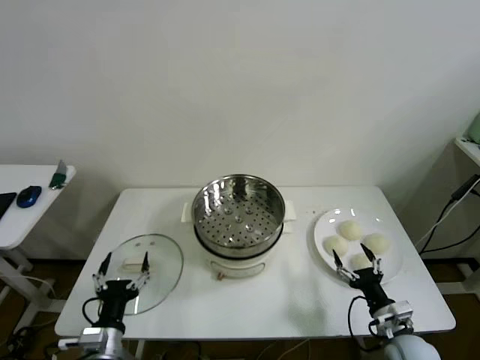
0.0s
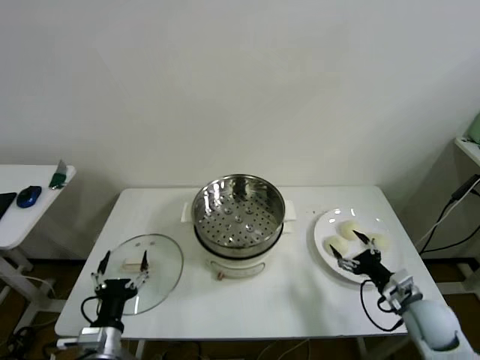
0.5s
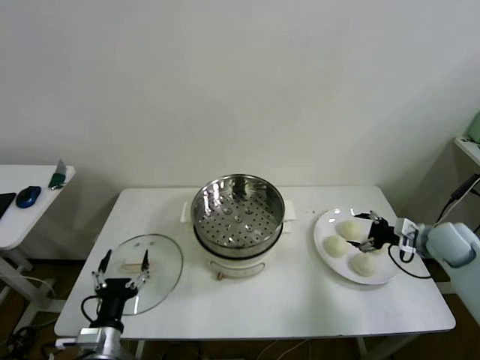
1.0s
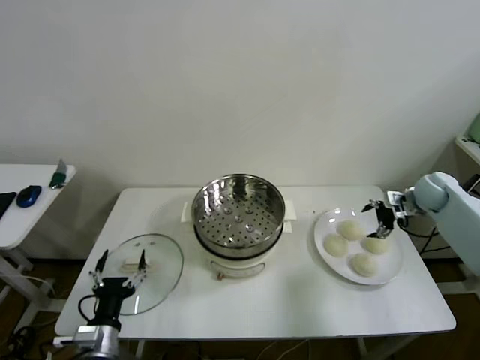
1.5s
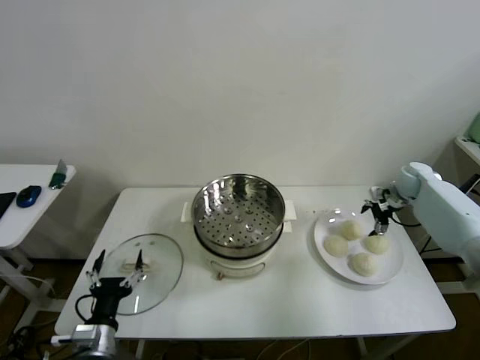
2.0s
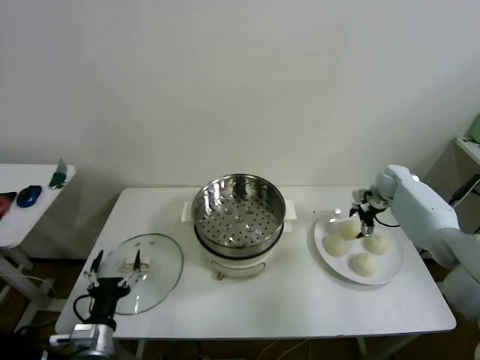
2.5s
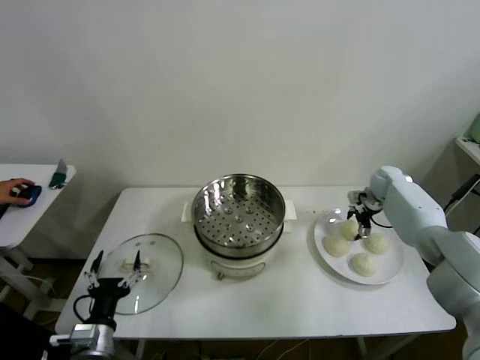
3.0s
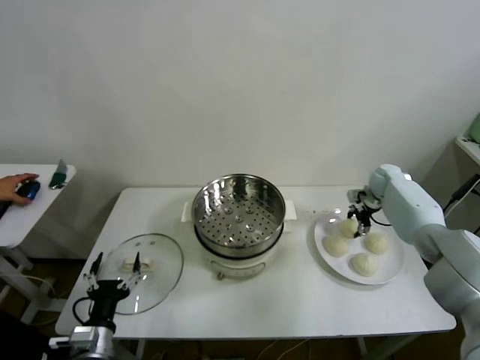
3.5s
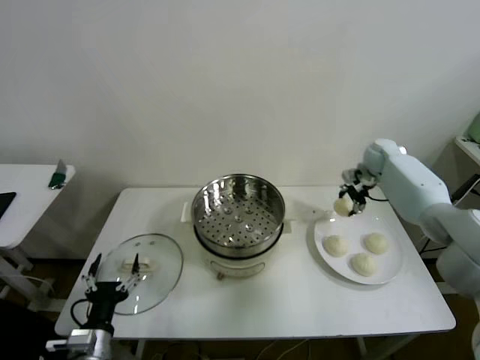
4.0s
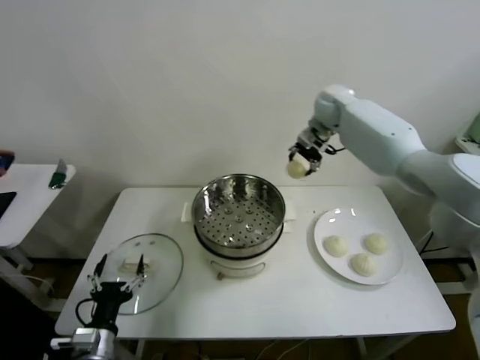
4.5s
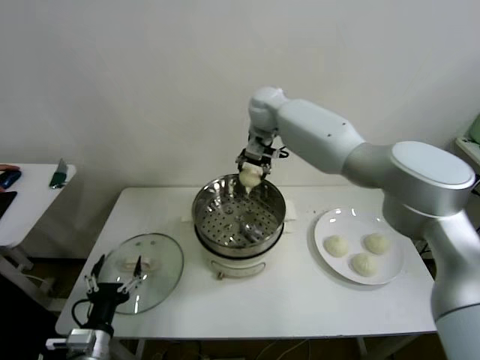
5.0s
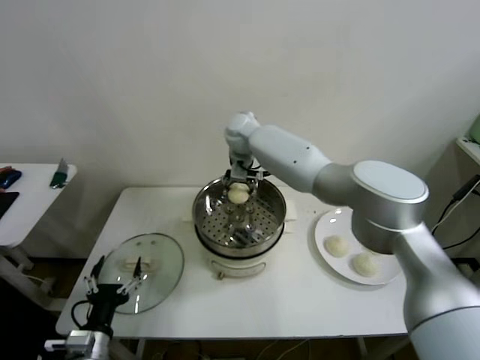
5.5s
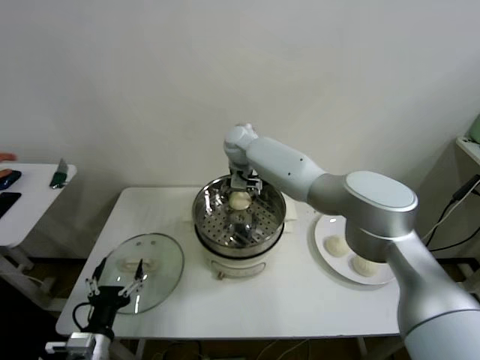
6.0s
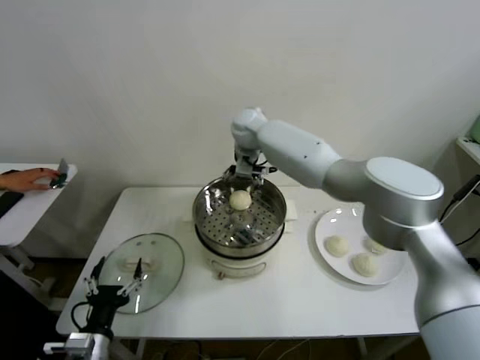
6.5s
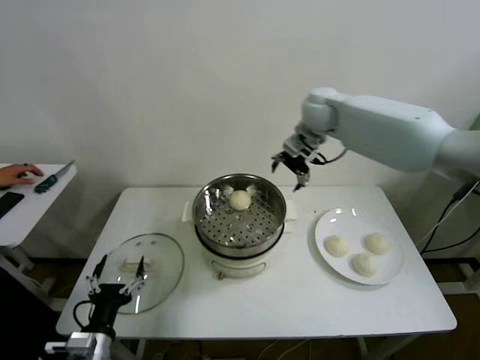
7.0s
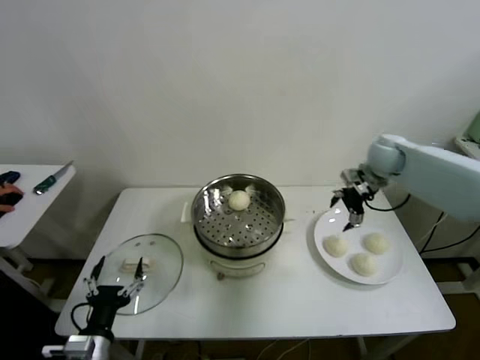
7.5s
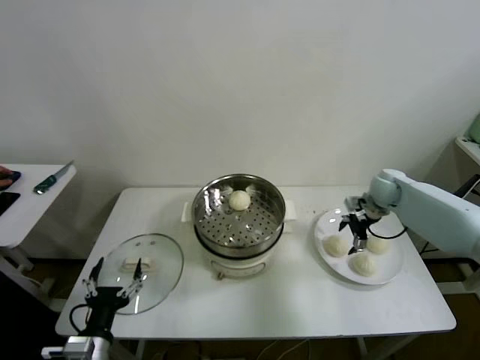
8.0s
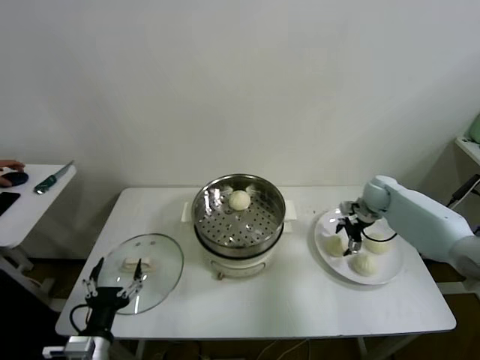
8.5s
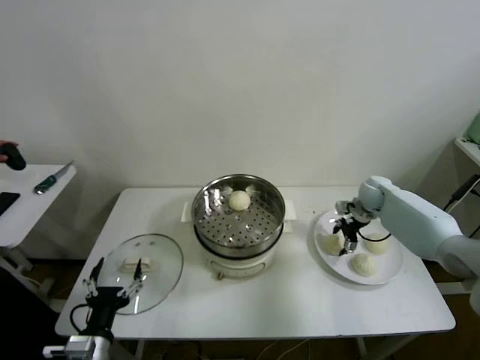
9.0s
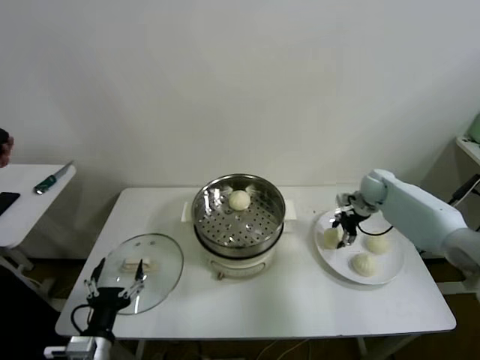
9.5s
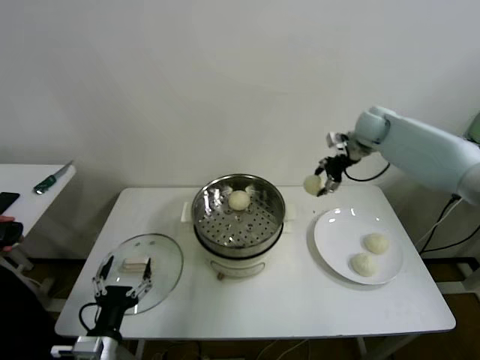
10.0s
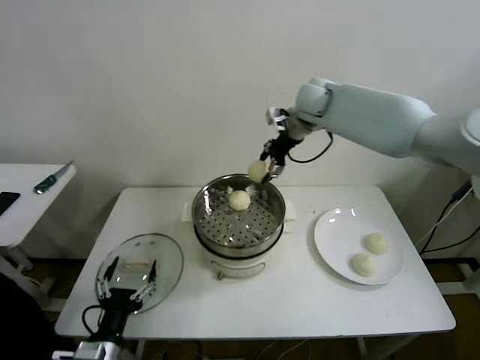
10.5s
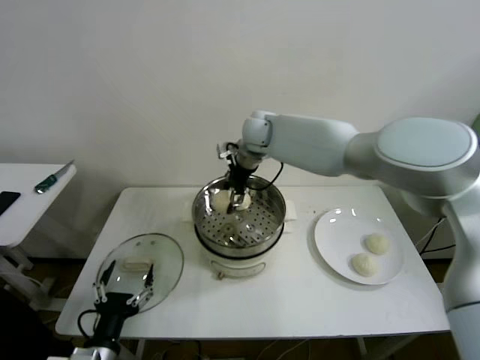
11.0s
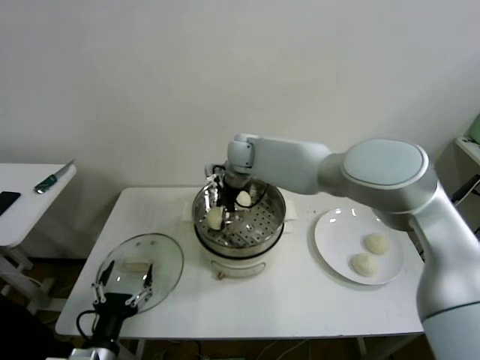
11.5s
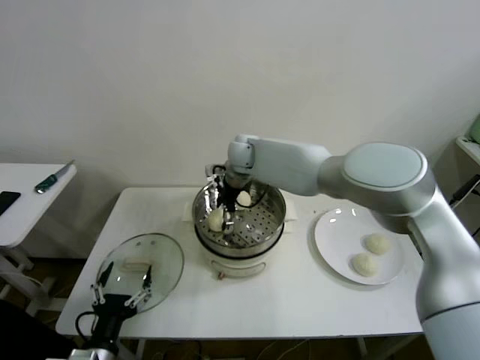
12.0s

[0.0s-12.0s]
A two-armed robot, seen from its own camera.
Step, 0.0s to 3.0s: Grasp the baozi in the plate with right gripper.
Step, 3.5s to 6.0s: Place the baozi on the steamer with right gripper.
Step, 6.5s to 9.0s: Grasp the baozi in the plate with right gripper.
Step, 9.5s to 11.5s: Place the baozi on the steamer with right gripper.
2.0s to 4.0s: The right gripper travels to the left and forward by approximately 10 cm, and closes.
4.0s to 6.0s: The right gripper goes some 40 cm to the left, and opens up.
6.0s to 8.0s: The right gripper travels to the right by about 40 cm.
8.0s to 10.0s: The right gripper travels upward and forward by about 15 cm, and closes its fingers.
10.0s to 12.0s: The right gripper moves to the left, roughly 35 cm, and opens its fingers.

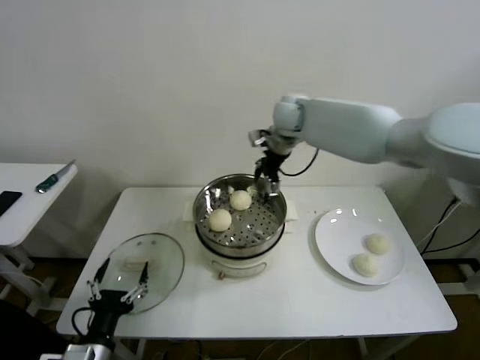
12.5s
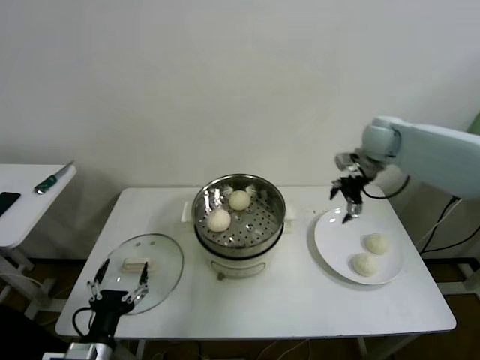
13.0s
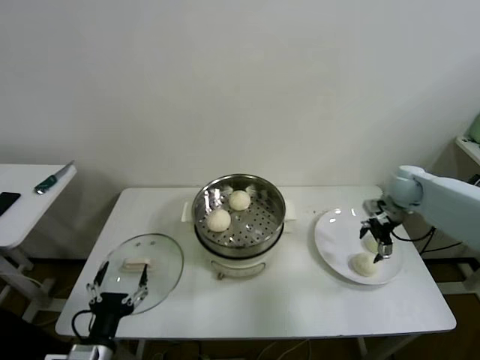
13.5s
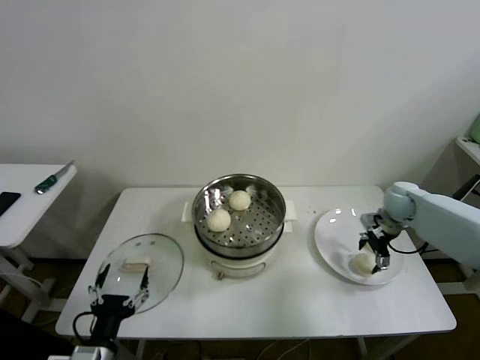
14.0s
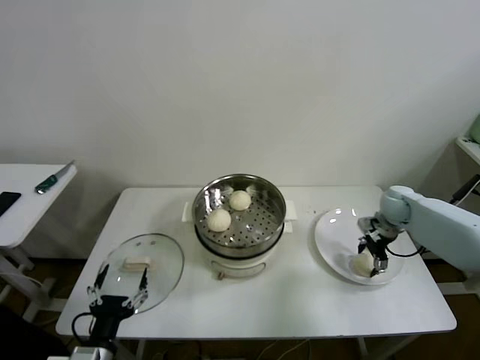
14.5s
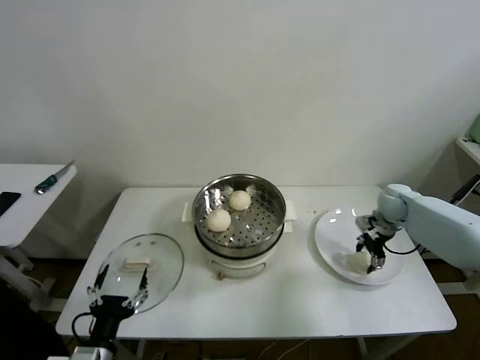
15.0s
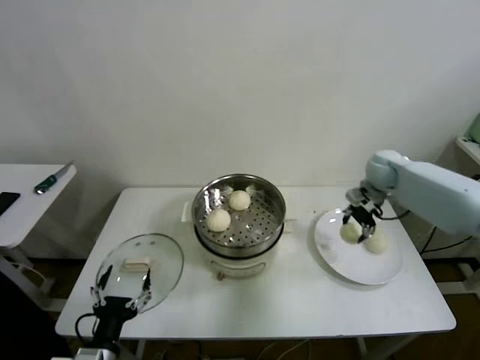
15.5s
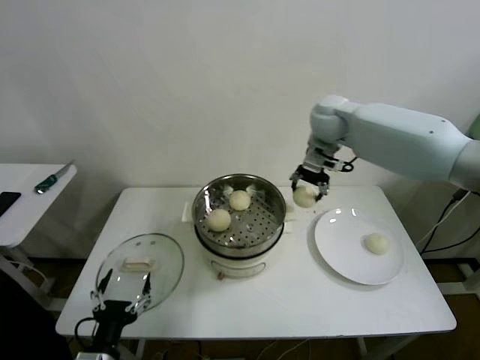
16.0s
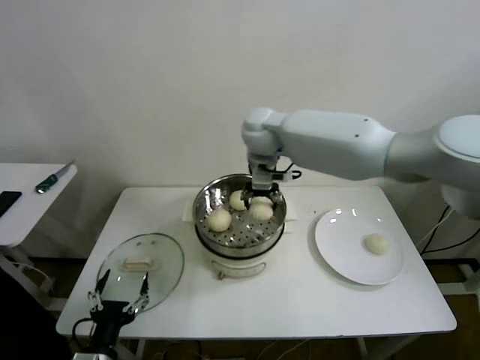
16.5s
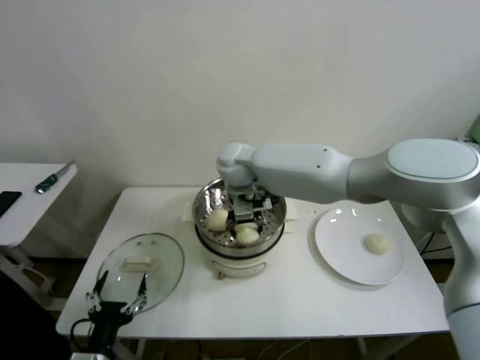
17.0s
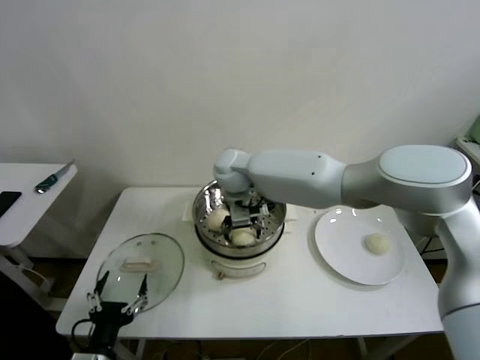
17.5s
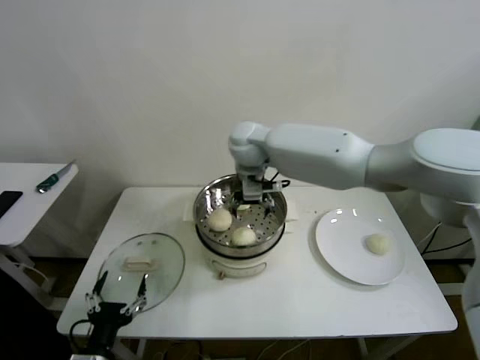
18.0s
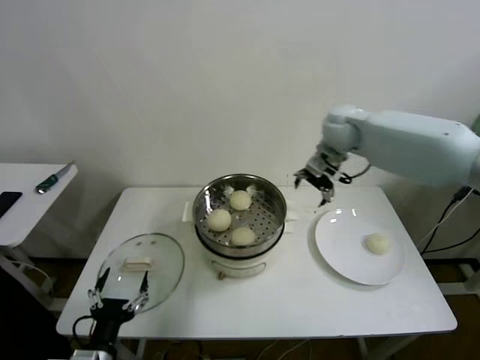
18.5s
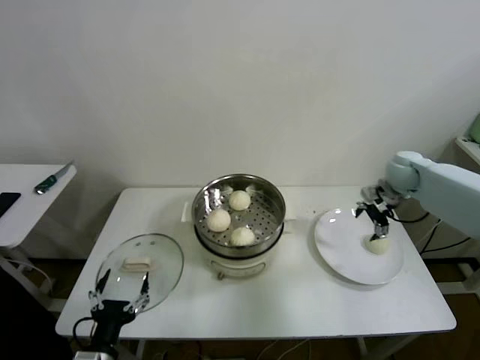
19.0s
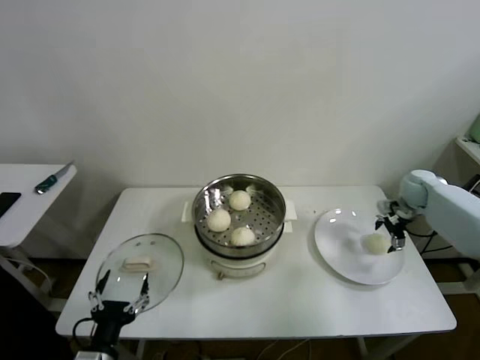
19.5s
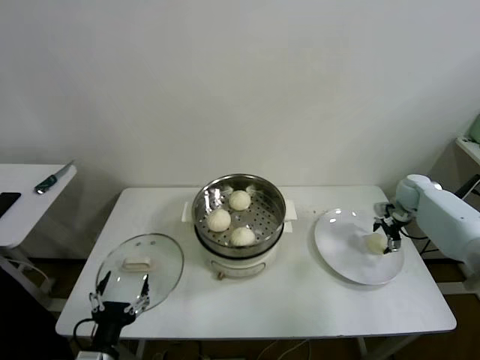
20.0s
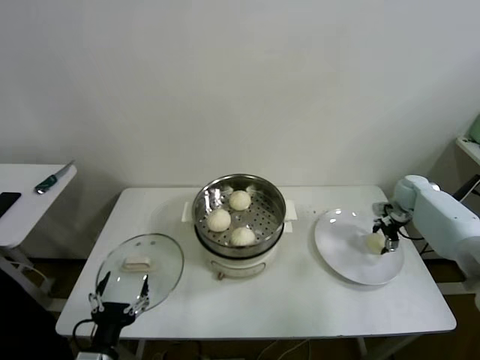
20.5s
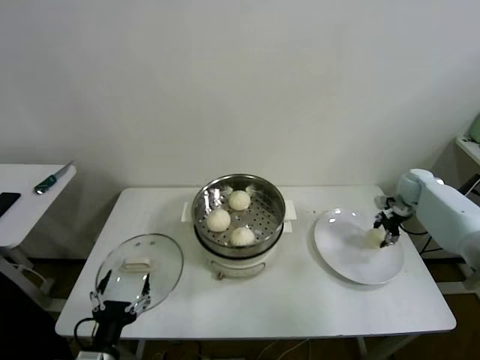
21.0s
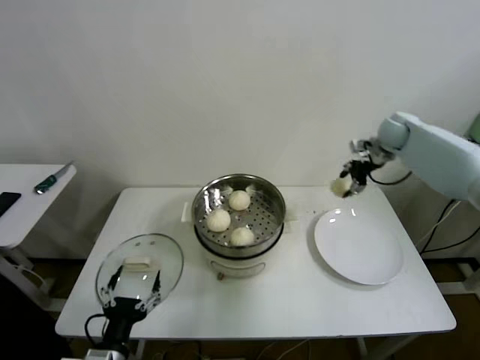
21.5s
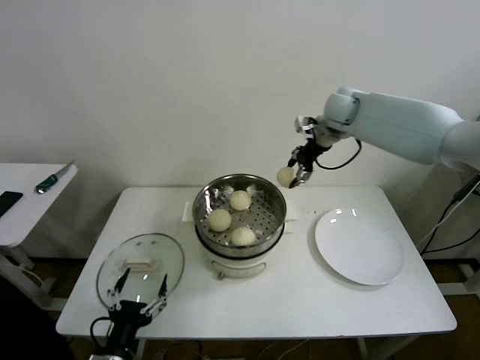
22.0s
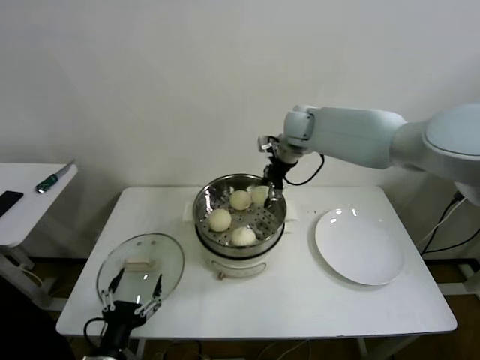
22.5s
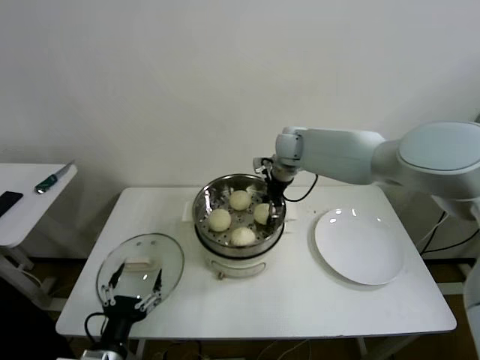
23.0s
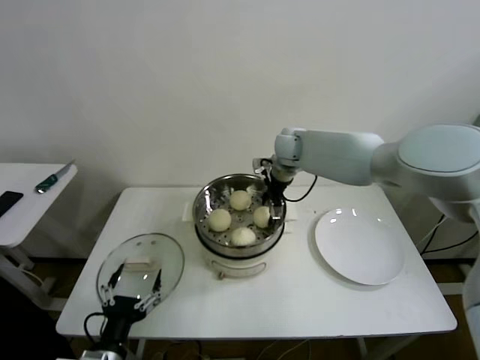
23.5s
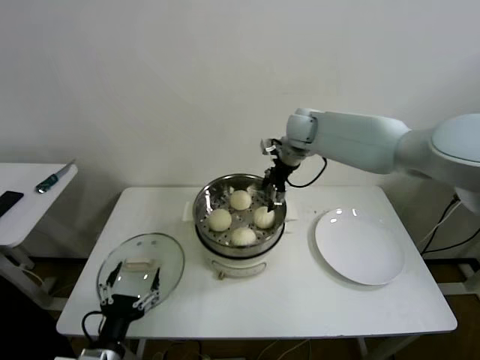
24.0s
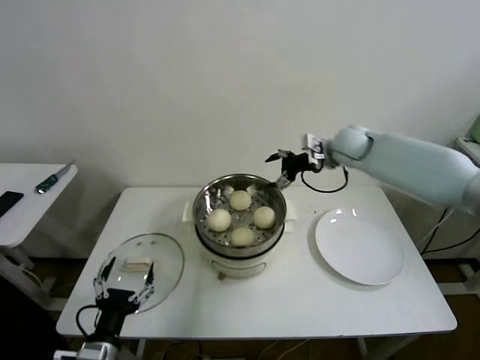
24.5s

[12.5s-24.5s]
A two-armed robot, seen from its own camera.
Step, 12.5s to 14.5s: Grasp the baozi in the plate with right gripper.
Step, 15.0s to 17.5s: Place the baozi on the steamer with right gripper.
Step, 18.0s to 20.5s: Grasp the baozi in the plate with right gripper.
Step, 21.0s to 23.0s: Place the baozi on the steamer with right gripper.
12.5s to 14.5s: The right gripper is displaced to the right and downward by roughly 40 cm.
14.5s to 16.5s: The right gripper is displaced to the left and upward by roughly 40 cm, and closes its fingers.
16.5s to 18.5s: The right gripper is displaced to the right by some 15 cm, and opens up.
18.5s to 20.5s: The right gripper moves to the right and downward, some 35 cm.
20.5s to 22.5s: The right gripper moves to the left and upward, roughly 40 cm, and closes up.
22.5s to 24.5s: The right gripper heads to the right, covering approximately 10 cm, and opens up.

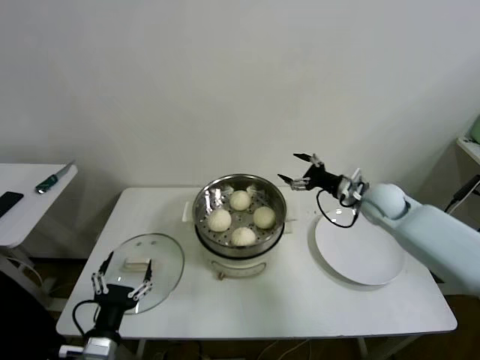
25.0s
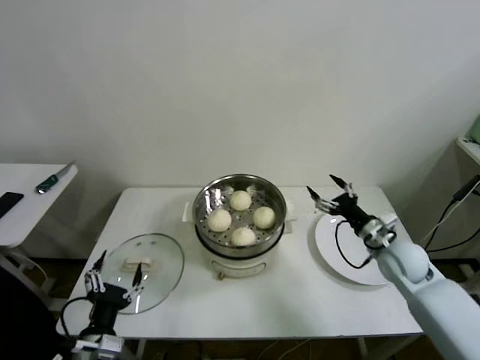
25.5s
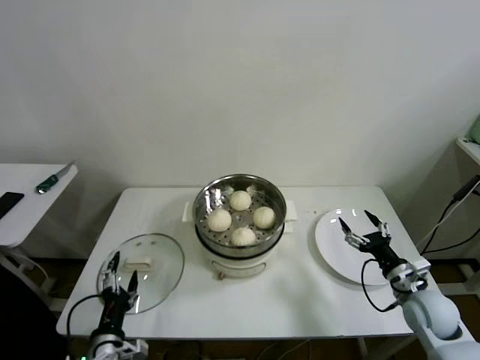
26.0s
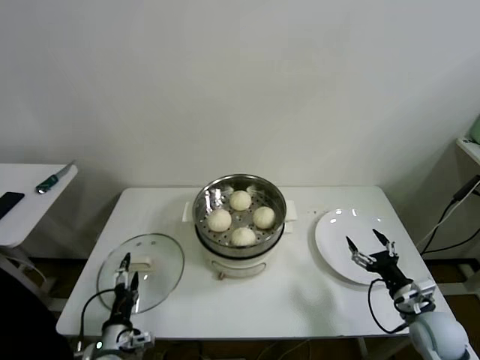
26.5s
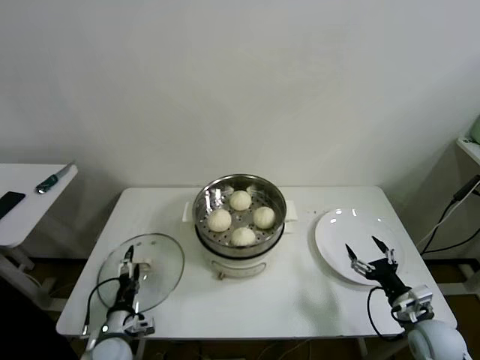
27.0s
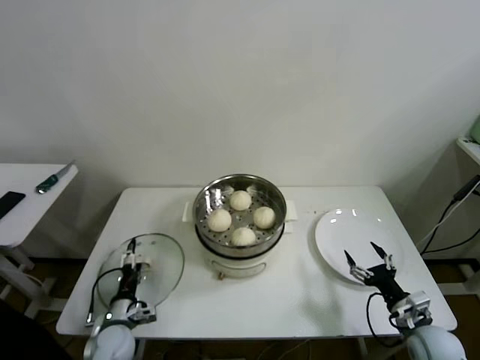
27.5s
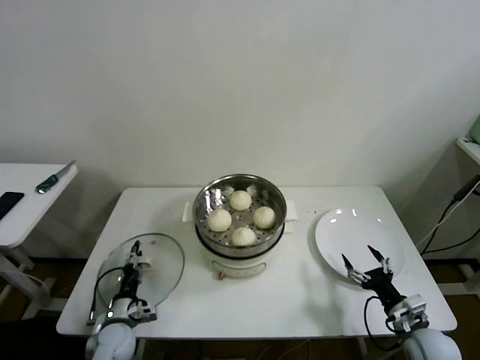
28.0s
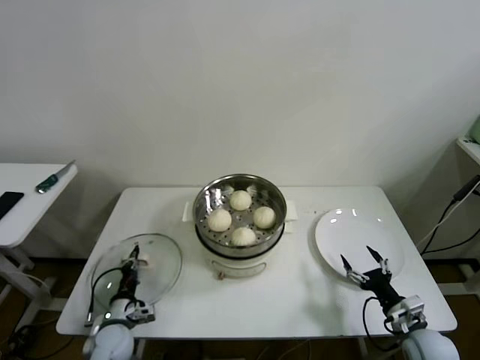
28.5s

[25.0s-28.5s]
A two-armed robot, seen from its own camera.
Step, 25.0s to 28.0s: Grasp the pot lid with left gripper.
25.0s to 27.0s: The left gripper goes roughly 15 cm downward and forward; the right gripper heads backward and downward, covering roughly 30 cm.
27.0s to 28.5s: The left gripper closes up.
